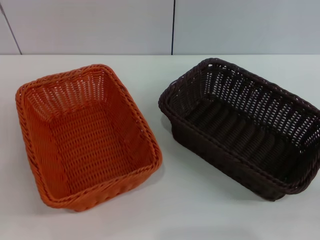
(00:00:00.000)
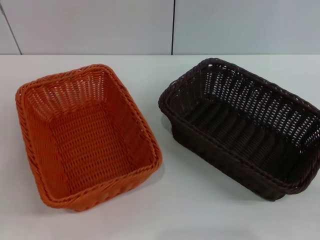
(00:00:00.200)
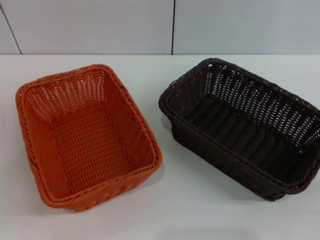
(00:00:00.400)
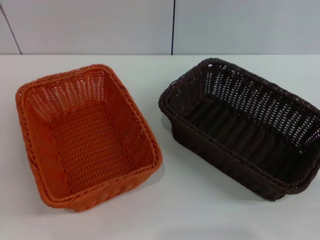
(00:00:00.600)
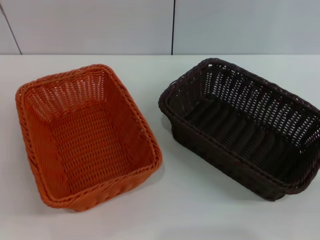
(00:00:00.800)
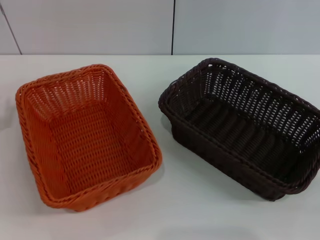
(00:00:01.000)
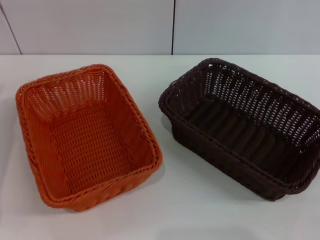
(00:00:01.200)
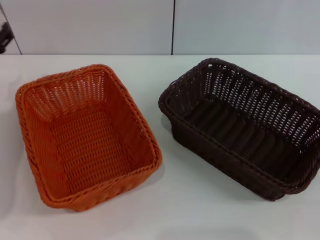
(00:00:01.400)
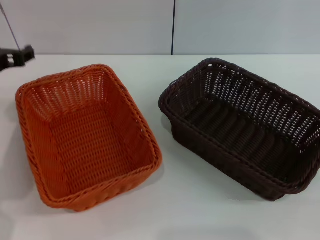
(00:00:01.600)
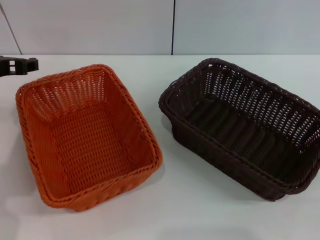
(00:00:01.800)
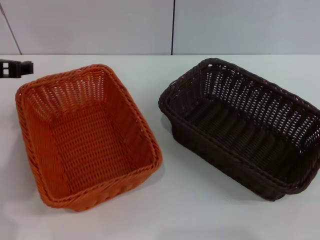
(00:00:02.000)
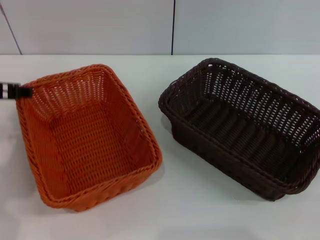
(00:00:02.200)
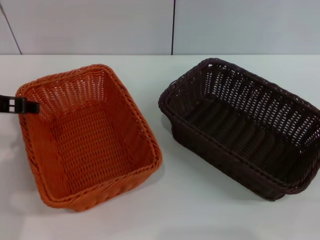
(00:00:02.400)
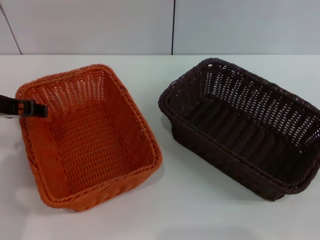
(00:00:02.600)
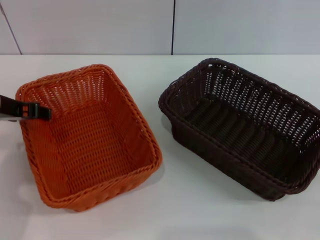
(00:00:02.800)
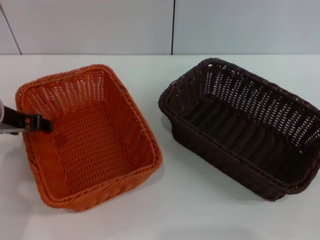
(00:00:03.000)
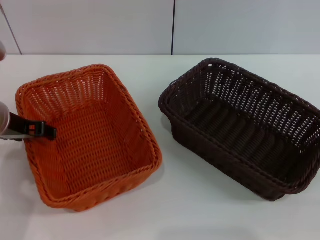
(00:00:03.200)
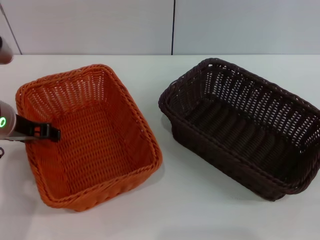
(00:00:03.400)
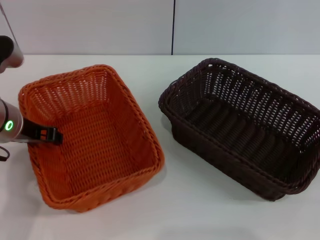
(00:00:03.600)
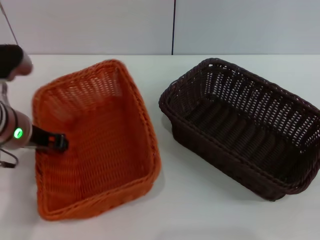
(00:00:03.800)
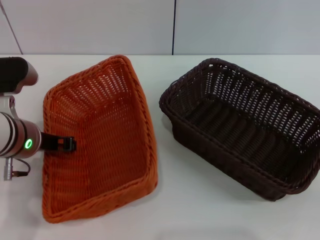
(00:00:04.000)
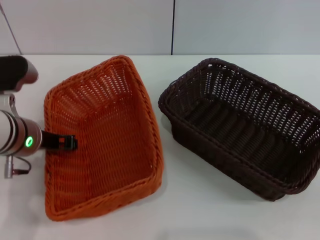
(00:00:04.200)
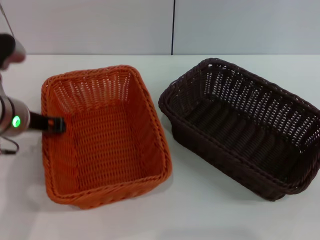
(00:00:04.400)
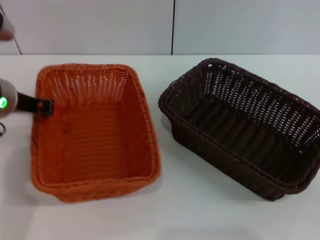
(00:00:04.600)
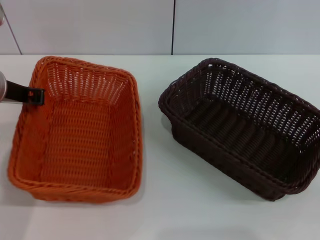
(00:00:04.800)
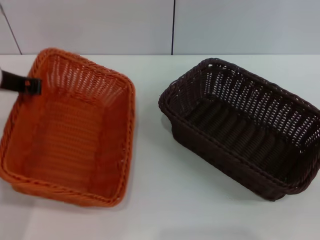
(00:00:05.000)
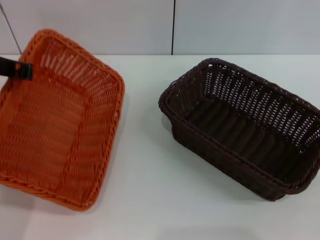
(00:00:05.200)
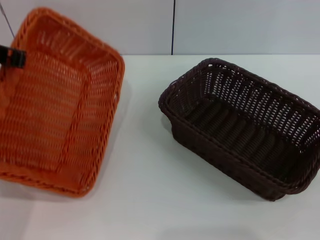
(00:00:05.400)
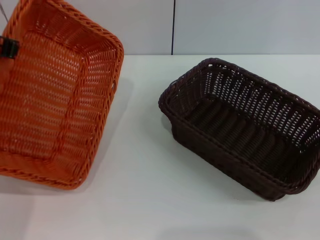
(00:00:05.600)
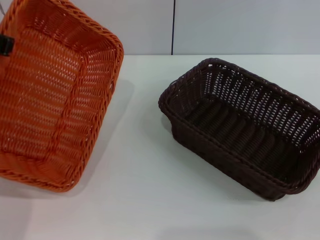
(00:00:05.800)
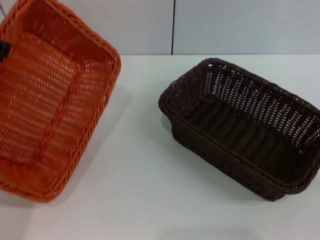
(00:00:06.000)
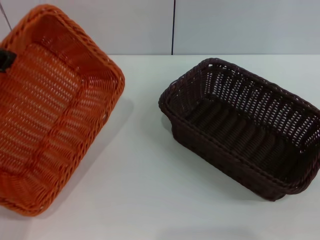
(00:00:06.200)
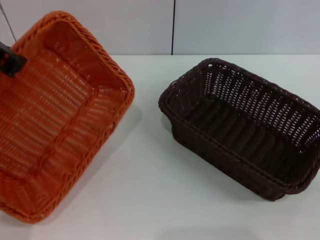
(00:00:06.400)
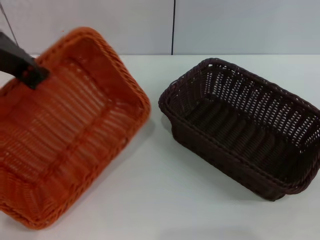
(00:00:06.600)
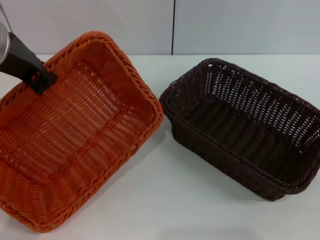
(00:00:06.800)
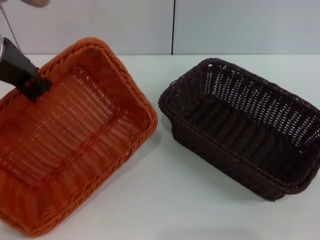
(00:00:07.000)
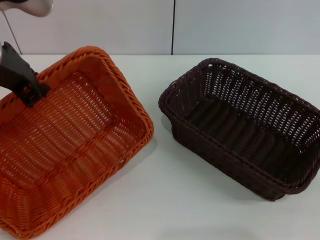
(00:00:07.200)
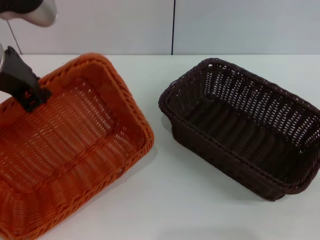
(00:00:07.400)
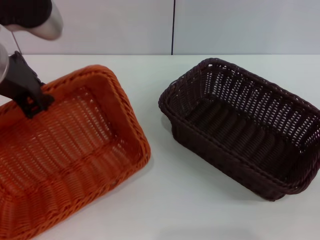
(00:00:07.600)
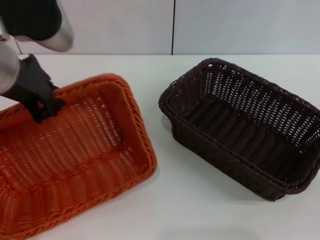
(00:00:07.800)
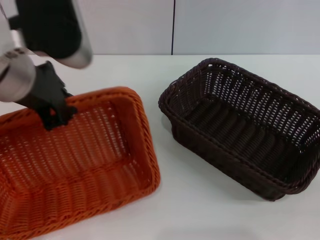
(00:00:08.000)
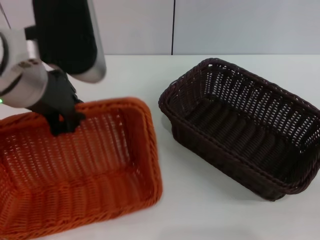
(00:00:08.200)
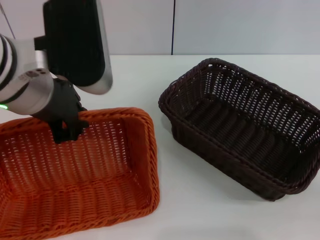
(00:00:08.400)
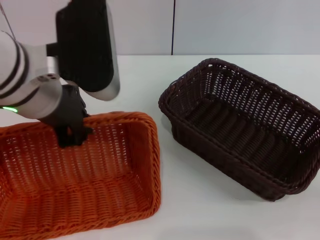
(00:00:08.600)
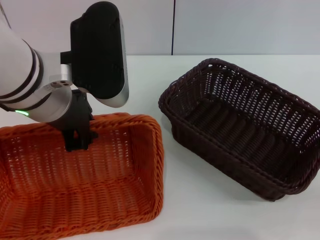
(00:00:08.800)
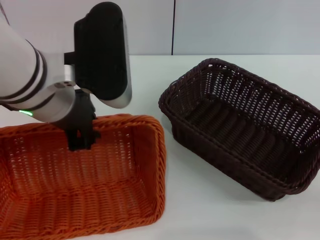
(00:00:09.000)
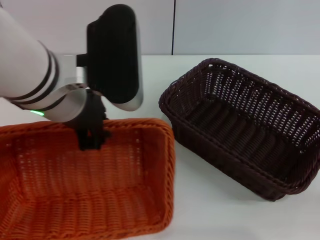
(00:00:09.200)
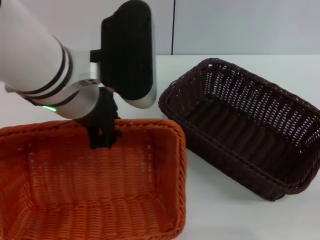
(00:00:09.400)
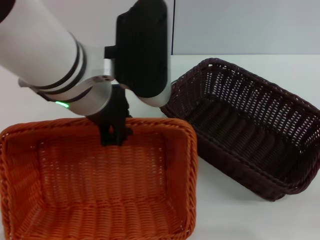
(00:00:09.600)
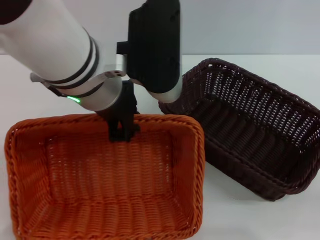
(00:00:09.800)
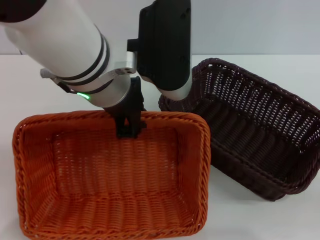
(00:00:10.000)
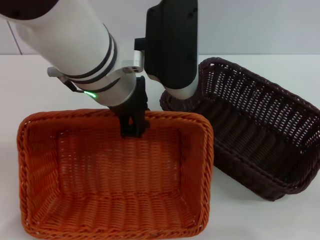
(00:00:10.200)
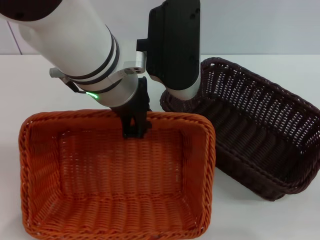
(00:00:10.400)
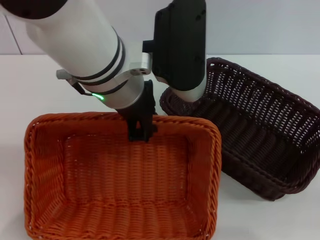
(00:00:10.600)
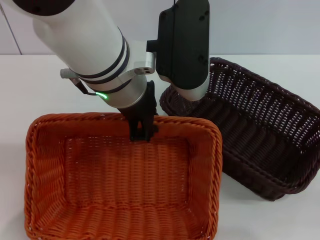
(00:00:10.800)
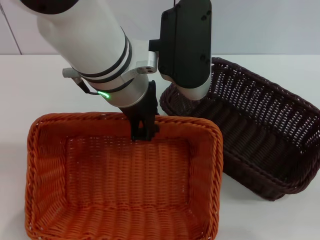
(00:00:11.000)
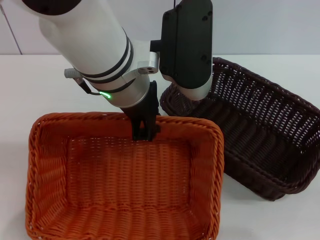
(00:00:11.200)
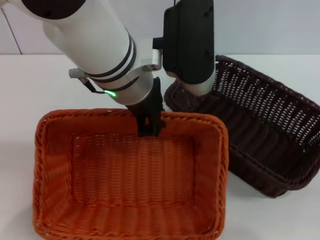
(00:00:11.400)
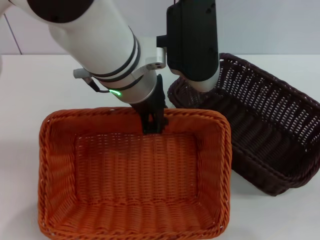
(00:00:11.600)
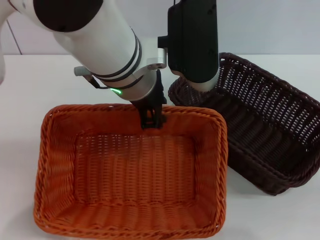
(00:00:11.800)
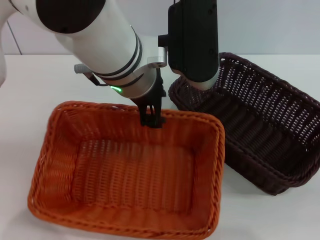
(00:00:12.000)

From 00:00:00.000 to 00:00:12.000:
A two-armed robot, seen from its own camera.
Step, from 00:00:00.000 to 00:00:03.800: Pick up the light basket with the left gripper.
From 00:00:00.000 to 00:00:01.600: The left gripper heads upward and forward, covering about 20 cm.
From 00:00:01.600 to 00:00:03.000: The left gripper shifts by some 5 cm.
From 00:00:03.000 to 00:00:04.400: The left gripper closes its fingers. The right gripper changes place by roughly 5 cm.
From 00:00:04.400 to 00:00:06.000: The left gripper travels upward by about 15 cm.
From 00:00:06.000 to 00:00:07.600: The left gripper shifts about 5 cm to the right.
From 00:00:07.600 to 00:00:09.000: The left gripper goes about 5 cm to the right.
From 00:00:09.000 to 00:00:10.400: The left gripper heads to the right, covering roughly 5 cm.

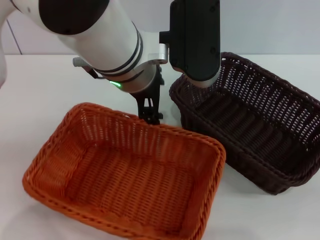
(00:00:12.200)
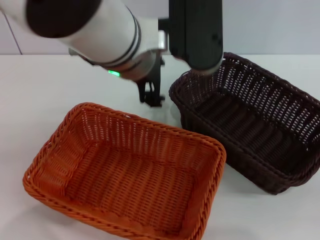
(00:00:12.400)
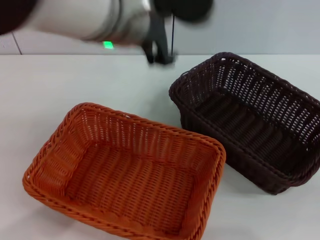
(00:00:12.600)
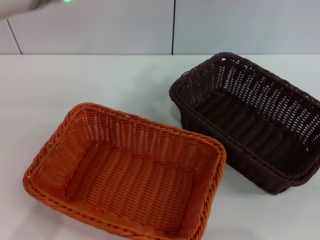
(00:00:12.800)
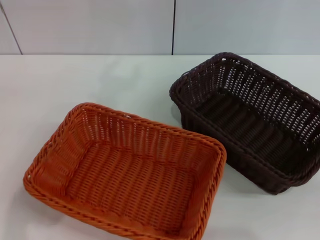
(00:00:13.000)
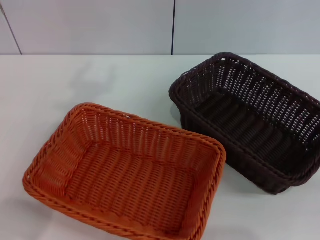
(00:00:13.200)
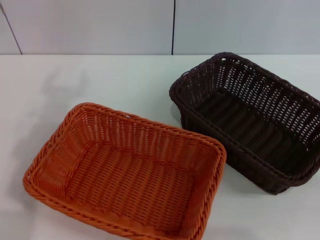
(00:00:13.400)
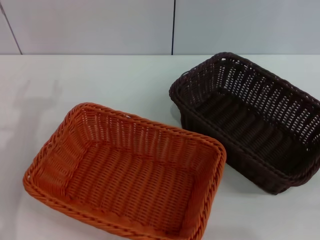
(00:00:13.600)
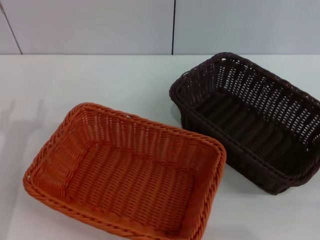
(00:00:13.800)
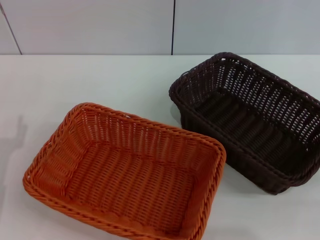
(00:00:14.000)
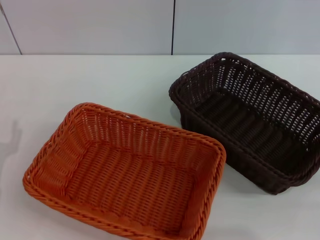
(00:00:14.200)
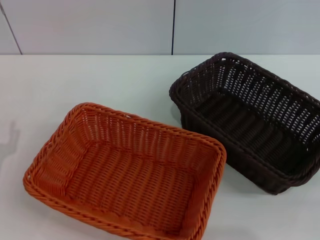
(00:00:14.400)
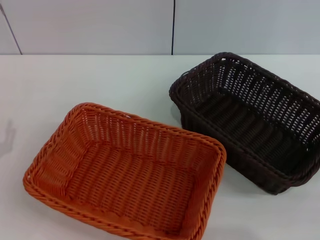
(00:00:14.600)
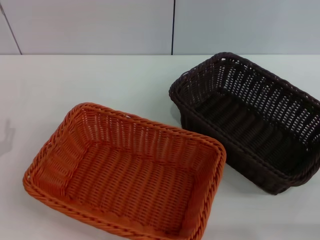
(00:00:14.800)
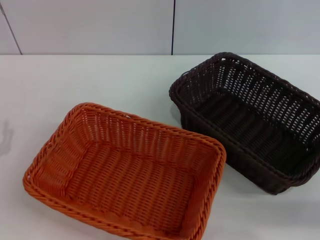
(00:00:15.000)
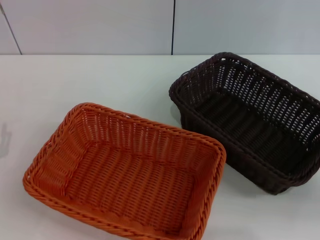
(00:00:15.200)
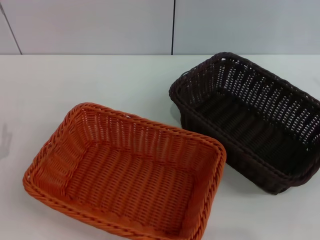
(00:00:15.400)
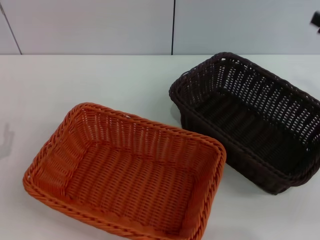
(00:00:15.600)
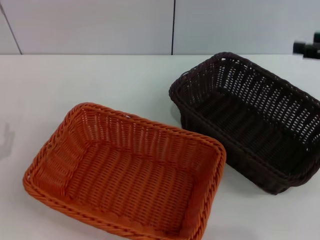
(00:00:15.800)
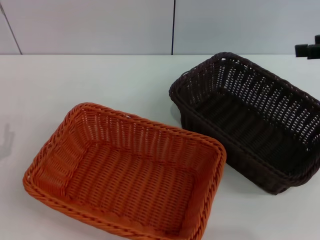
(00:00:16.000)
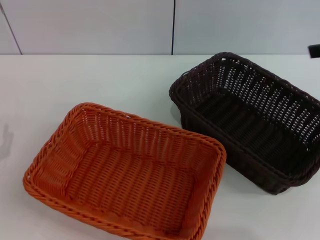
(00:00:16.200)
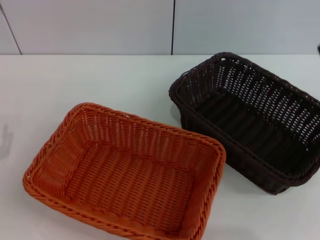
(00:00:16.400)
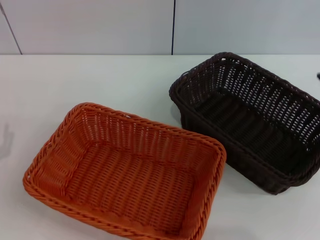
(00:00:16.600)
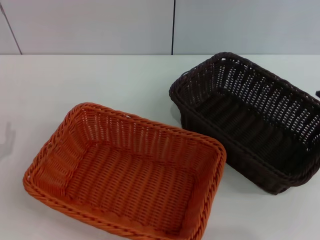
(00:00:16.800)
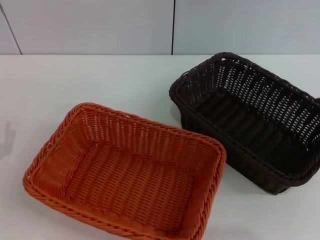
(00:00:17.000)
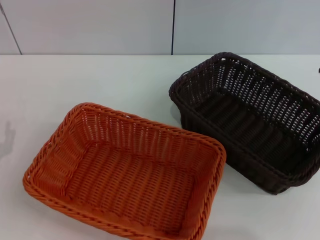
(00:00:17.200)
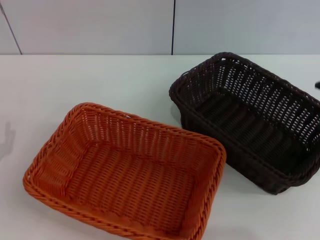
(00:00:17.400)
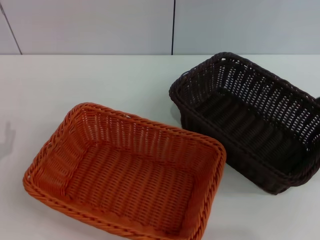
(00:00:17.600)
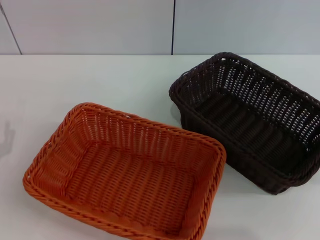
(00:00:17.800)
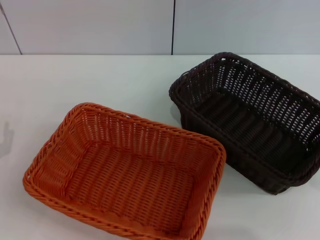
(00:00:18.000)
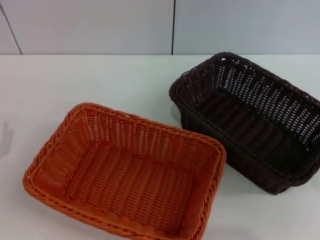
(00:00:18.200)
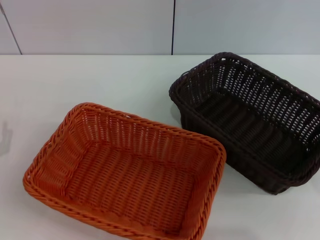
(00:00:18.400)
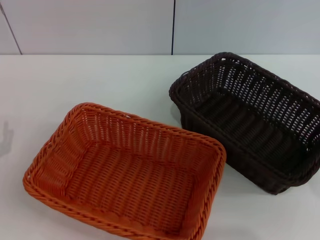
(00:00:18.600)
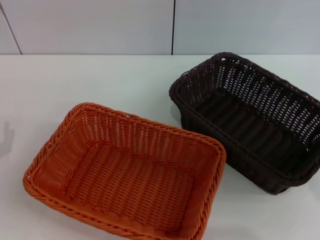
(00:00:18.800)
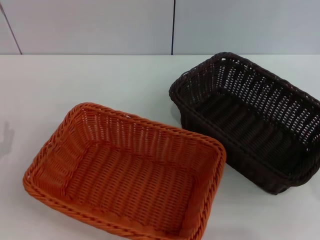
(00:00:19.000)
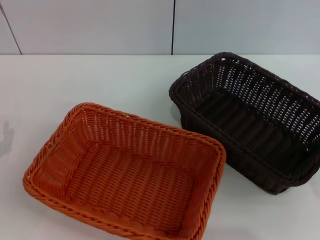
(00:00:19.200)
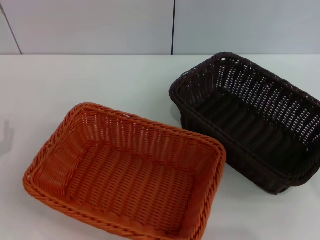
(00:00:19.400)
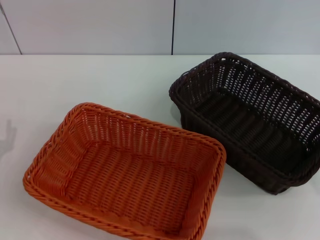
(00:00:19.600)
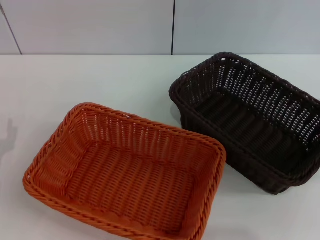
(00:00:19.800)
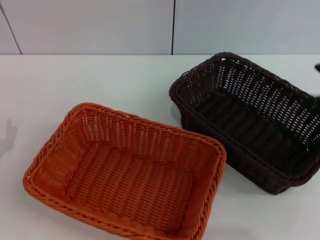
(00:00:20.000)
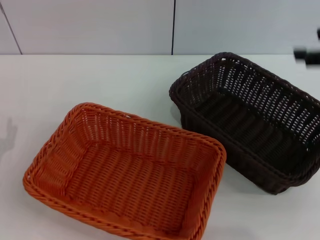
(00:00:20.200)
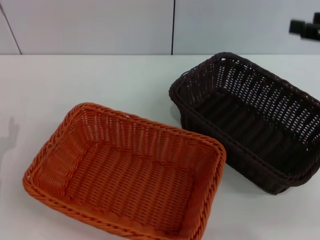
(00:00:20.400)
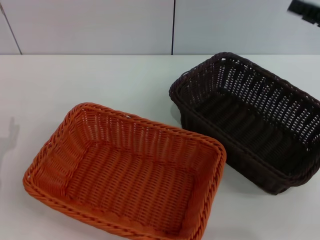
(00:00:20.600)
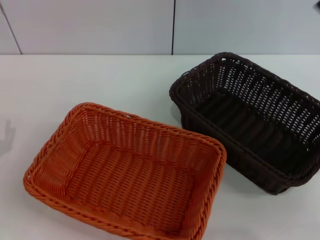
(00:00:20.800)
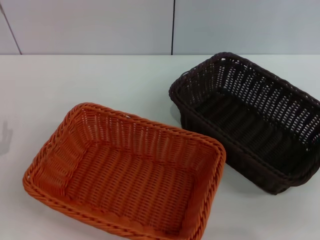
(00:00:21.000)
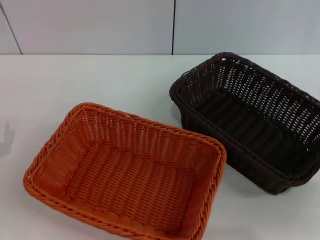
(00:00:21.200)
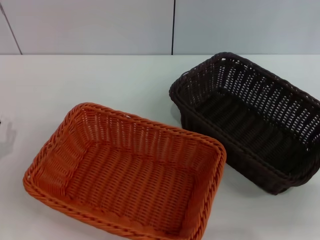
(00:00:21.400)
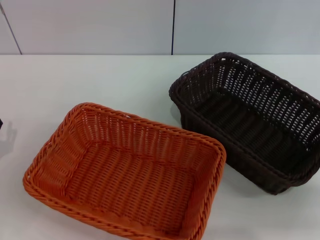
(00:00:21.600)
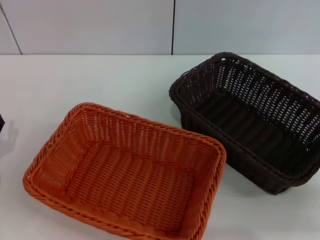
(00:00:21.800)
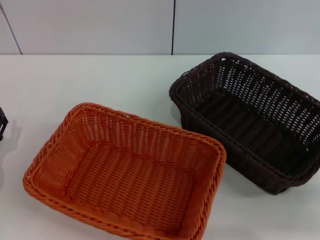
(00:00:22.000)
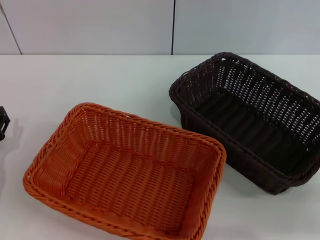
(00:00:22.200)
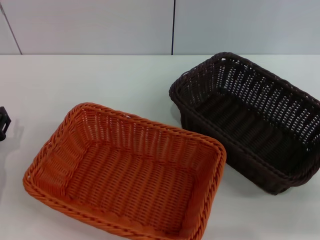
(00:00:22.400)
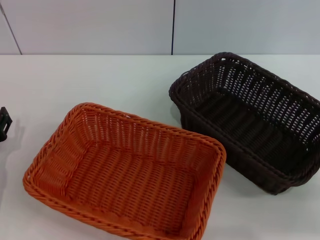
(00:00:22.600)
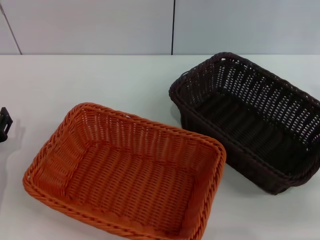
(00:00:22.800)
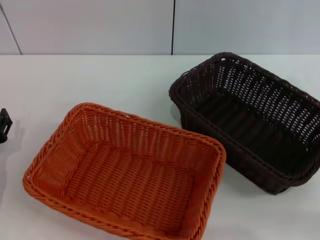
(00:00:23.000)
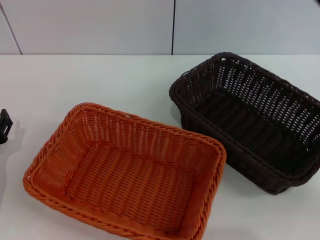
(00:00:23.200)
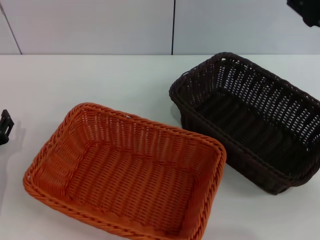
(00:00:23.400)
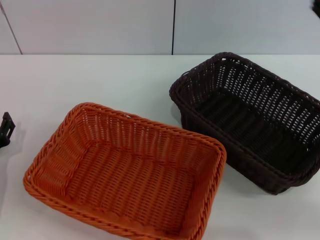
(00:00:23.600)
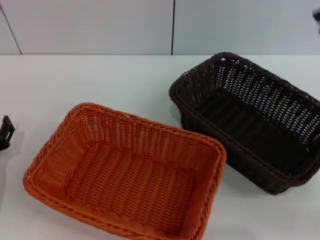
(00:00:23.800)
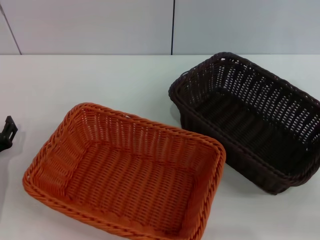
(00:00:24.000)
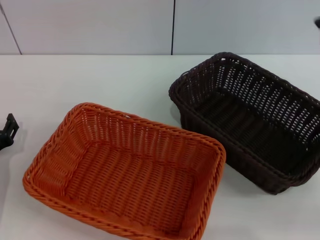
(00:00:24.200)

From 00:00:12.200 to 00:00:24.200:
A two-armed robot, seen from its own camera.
From 00:00:12.200 to 00:00:13.800: The left gripper goes approximately 30 cm to the left and downward.
From 00:00:15.200 to 00:00:16.600: The right gripper goes approximately 20 cm upward.
From 00:00:19.800 to 00:00:21.200: The right gripper shifts about 10 cm downward.
